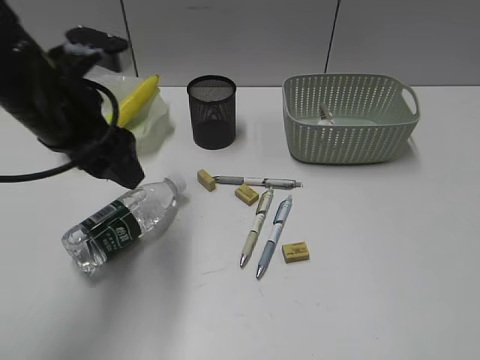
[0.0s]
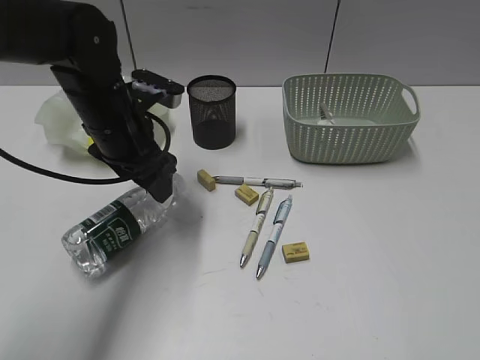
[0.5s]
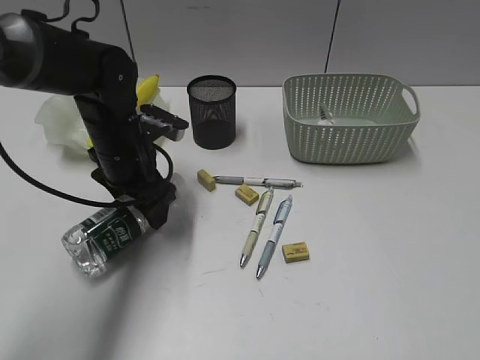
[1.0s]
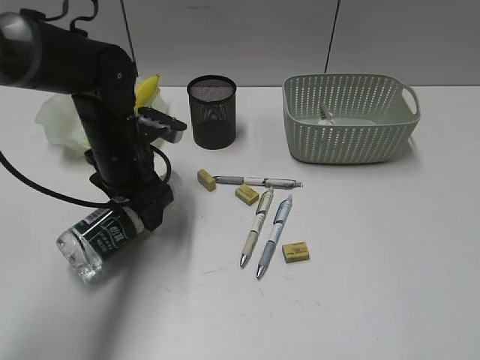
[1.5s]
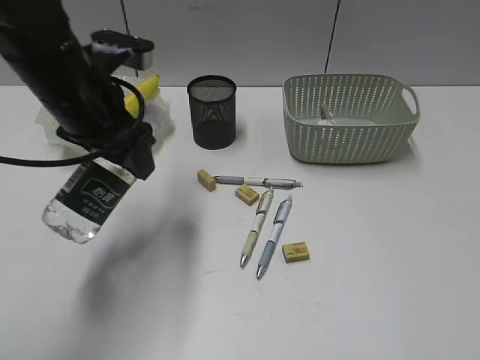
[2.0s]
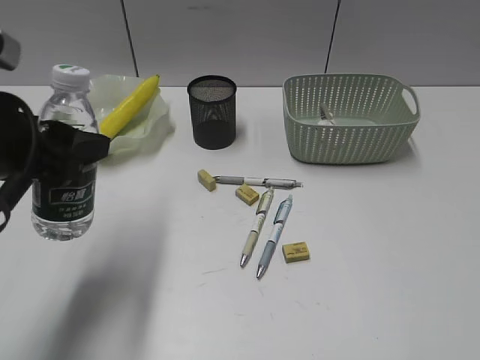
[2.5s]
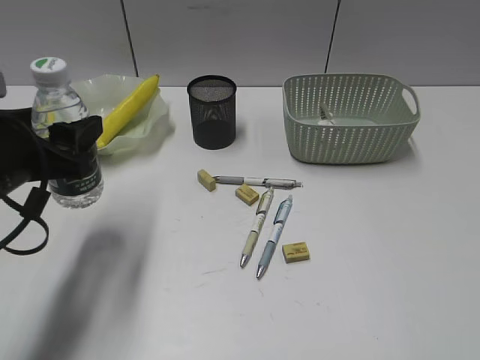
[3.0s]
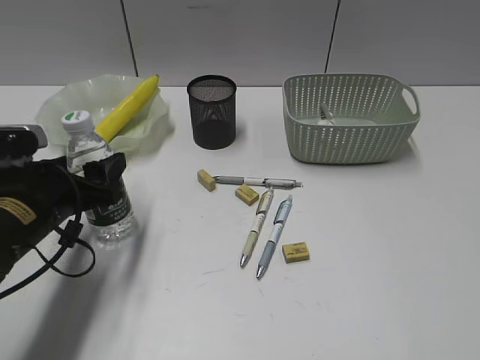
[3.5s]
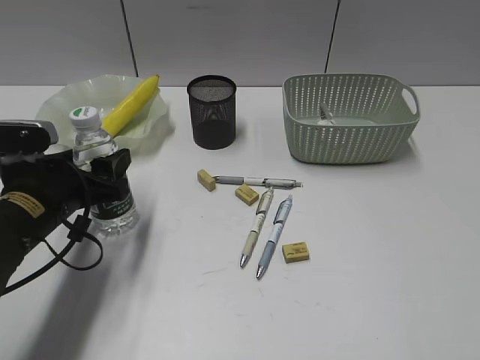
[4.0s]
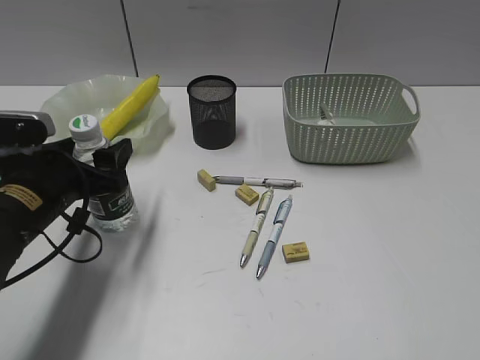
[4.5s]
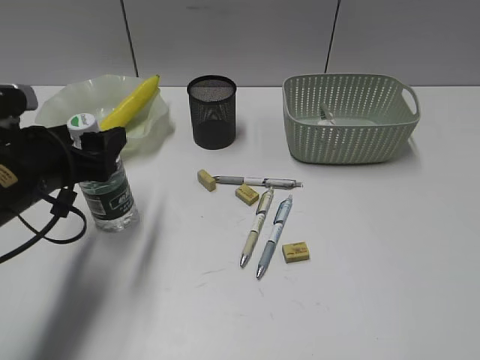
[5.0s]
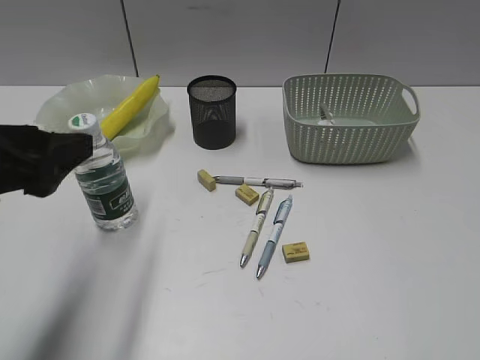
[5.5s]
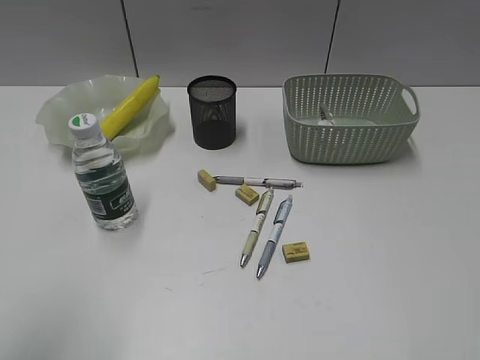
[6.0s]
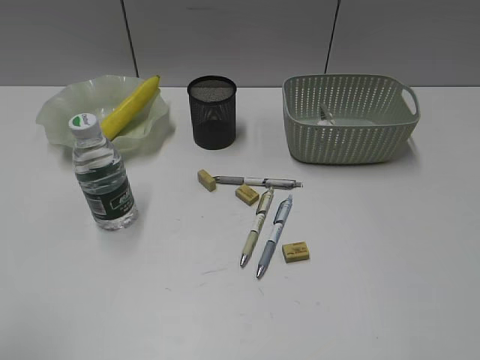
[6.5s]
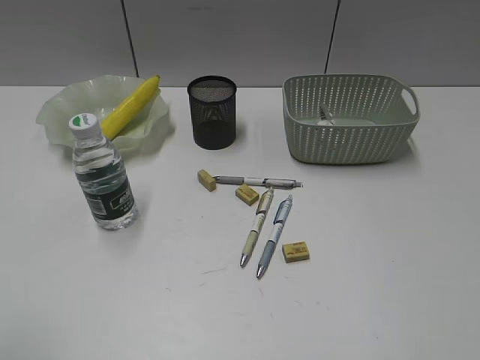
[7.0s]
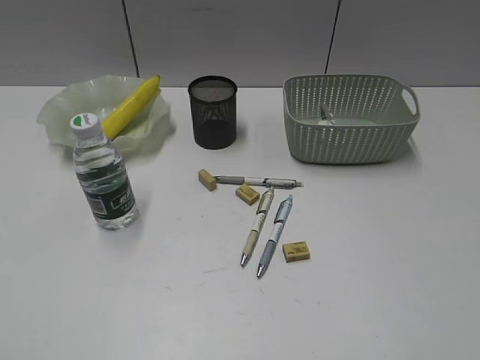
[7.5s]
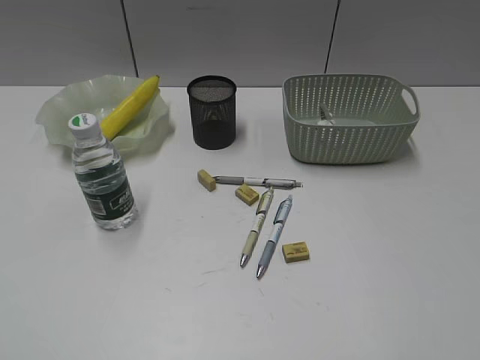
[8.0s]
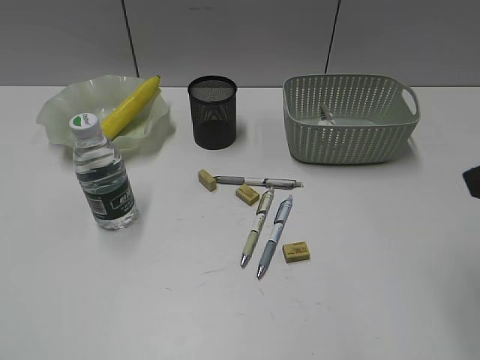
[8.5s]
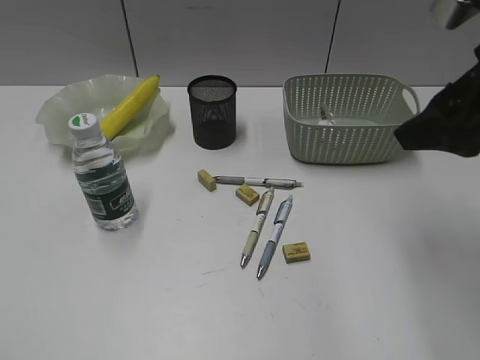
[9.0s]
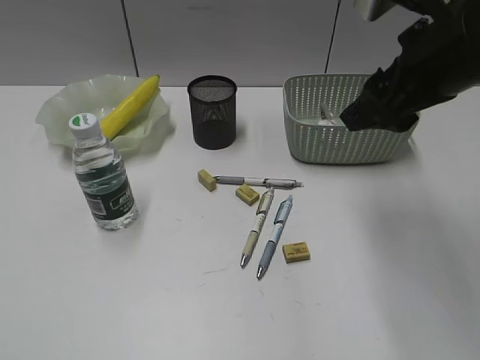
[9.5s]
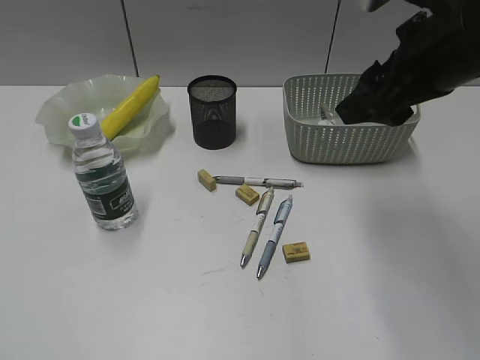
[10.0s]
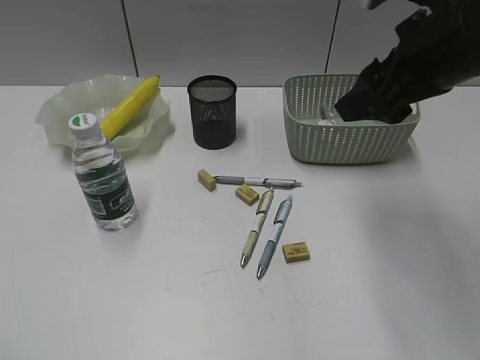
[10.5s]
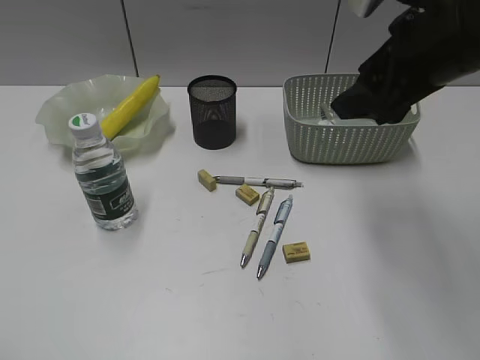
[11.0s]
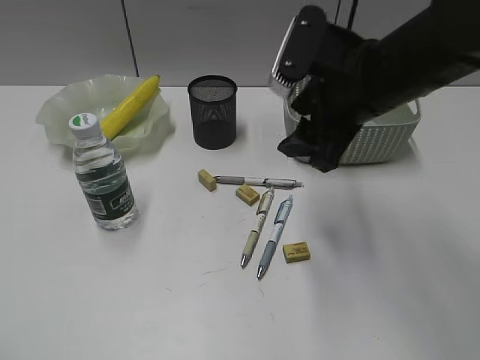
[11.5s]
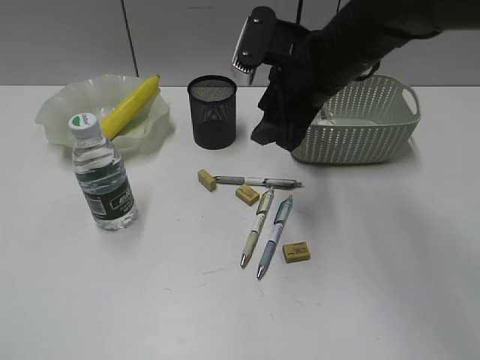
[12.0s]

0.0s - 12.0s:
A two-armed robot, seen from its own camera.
Step, 1.5s - 5.0s: Stand the bottle with left gripper.
0.0s - 2.0s: The left gripper reaches roughly 10 cm downward, then returns.
2.0s - 4.0s: The left gripper moves downward, backward and to the left, some 15 cm.
4.0s - 6.0s: The left gripper is displaced upward and backward by approximately 25 cm.
8.0s - 10.0s: The right gripper shifts about 30 cm forward and to the left.
10.0s - 12.0s: The right gripper goes approximately 15 cm to the left, forward and downward.

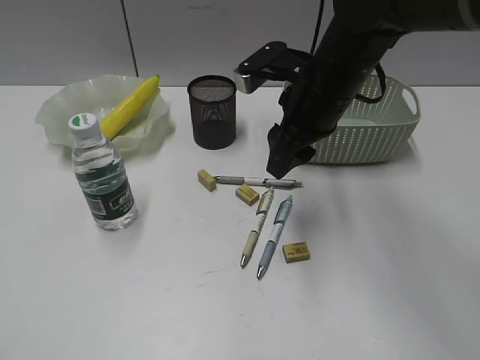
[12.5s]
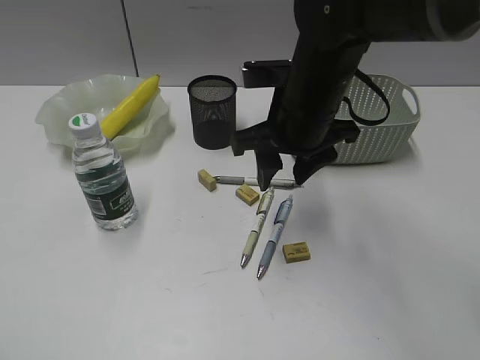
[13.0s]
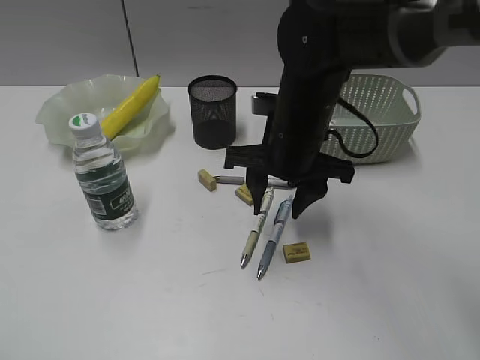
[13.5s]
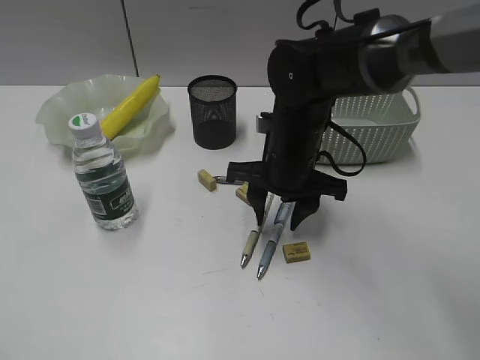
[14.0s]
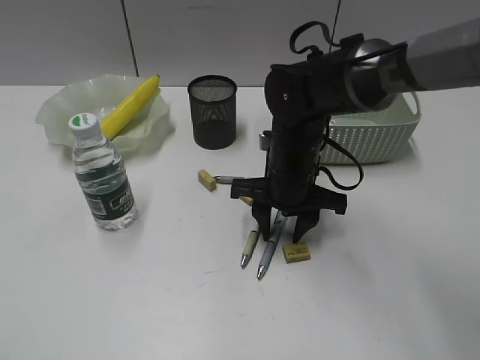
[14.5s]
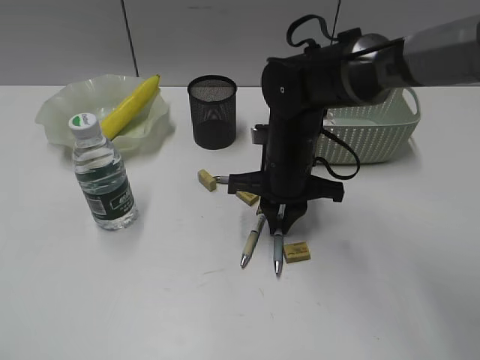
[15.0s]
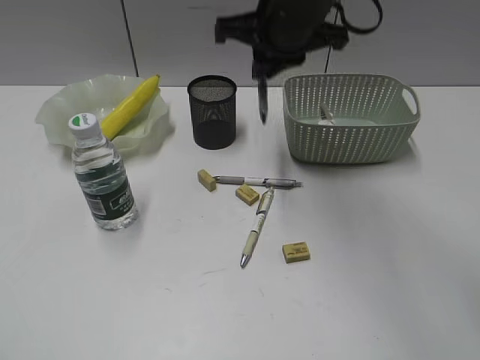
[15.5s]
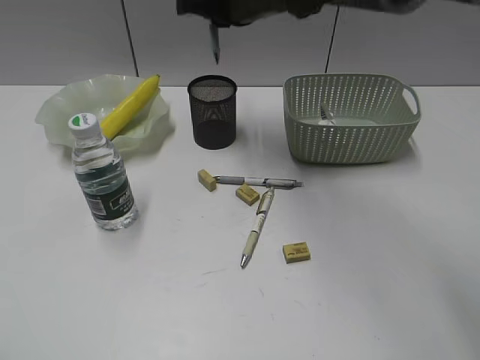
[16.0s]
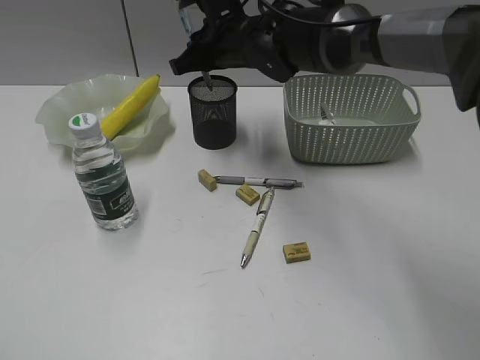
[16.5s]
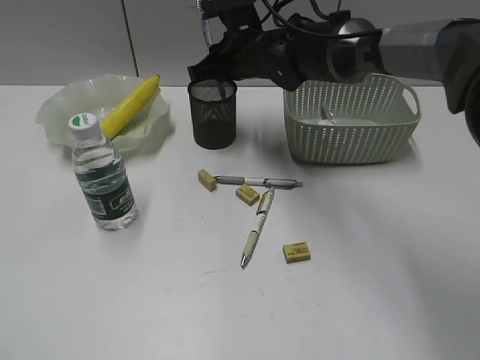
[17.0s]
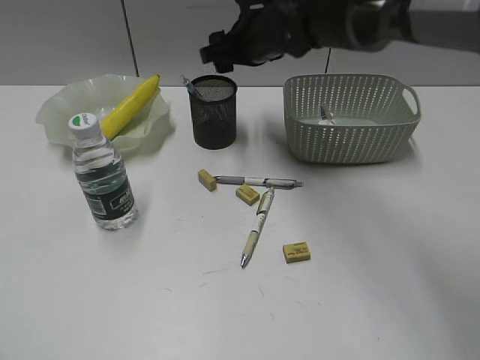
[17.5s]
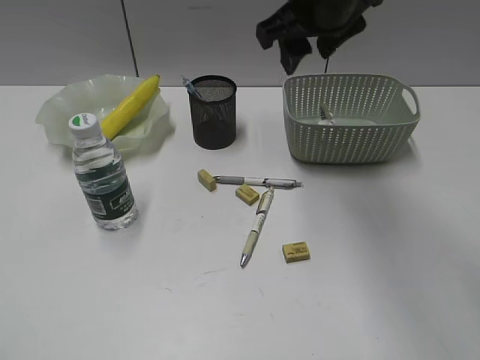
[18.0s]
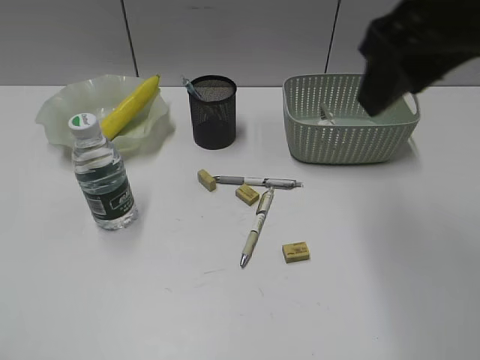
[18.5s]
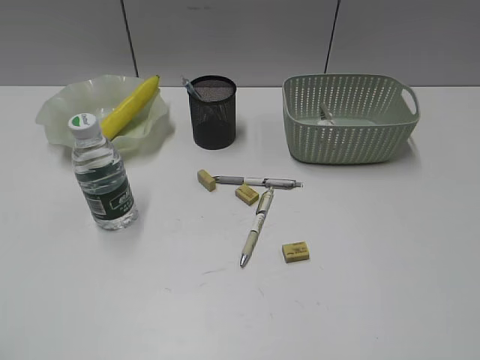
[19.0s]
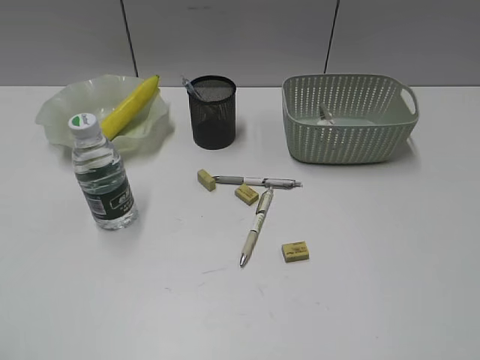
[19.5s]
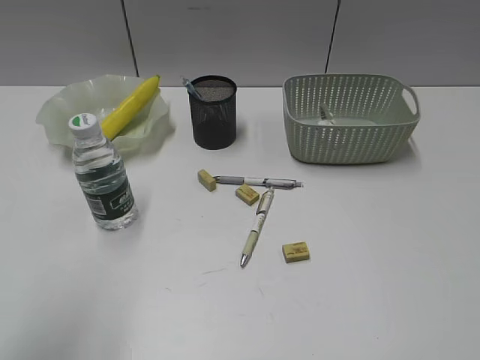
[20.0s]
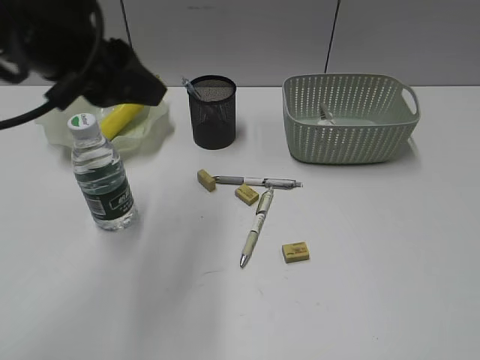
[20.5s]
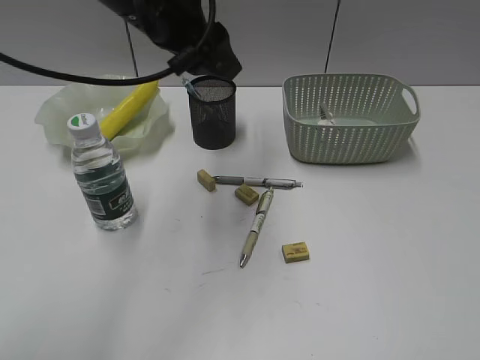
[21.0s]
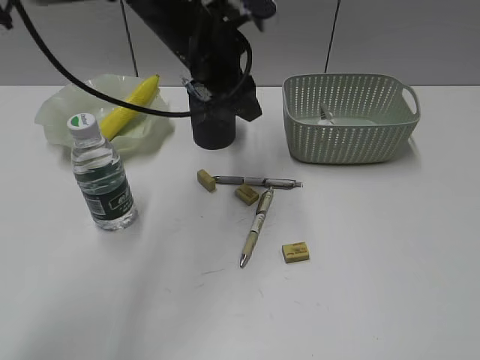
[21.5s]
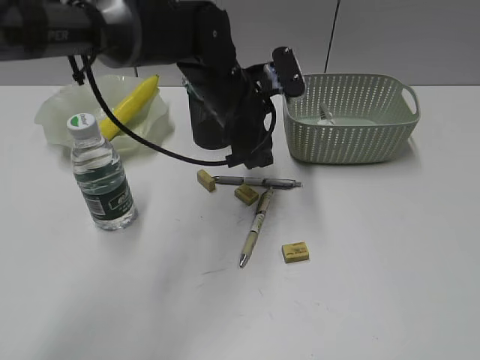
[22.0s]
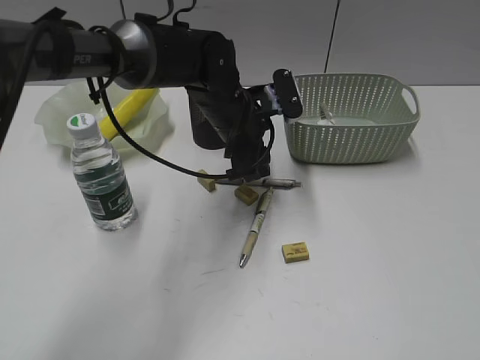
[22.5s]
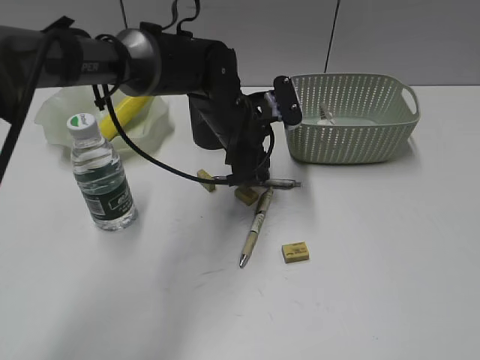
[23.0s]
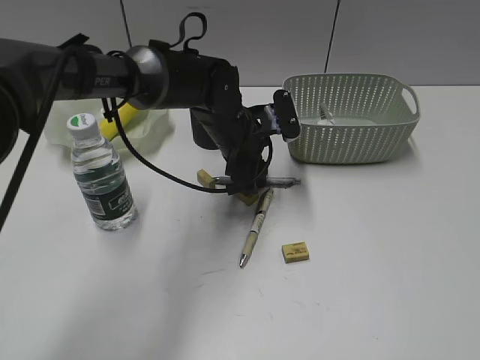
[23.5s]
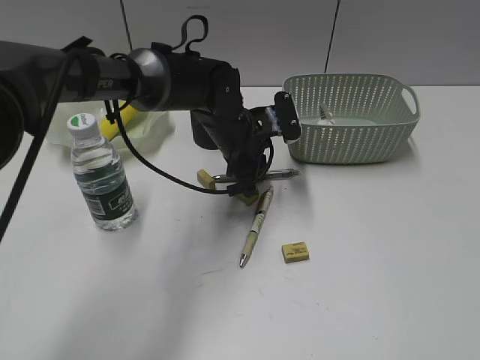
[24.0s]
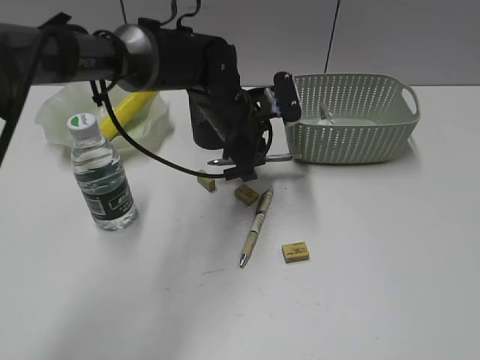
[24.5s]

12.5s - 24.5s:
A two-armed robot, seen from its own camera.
Step, 12.5s - 14.5s: Grasp the blue pen with right gripper.
Step, 15.0s - 17.0s: Place the blue pen in pen holder with right gripper.
Step, 17.5s - 24.0s: Grasp the gray pen with left gripper.
12.5s - 14.5s: The right gripper travels downward by some 10 cm.
14.5s - 16.5s: The right gripper moves forward, upward and to the left, some 15 cm, and closes its fingers.
16.5s - 18.5s: The right gripper goes about 30 cm backward, upward and to the right, and opens.
18.5s - 20.5s: The right gripper travels backward and to the right by about 30 cm. The left gripper heads forward and to the right, covering roughly 30 cm.
20.5s - 22.5s: The left gripper is displaced downward, to the right and forward by roughly 25 cm.
22.5s - 24.5s: The left gripper closes up.

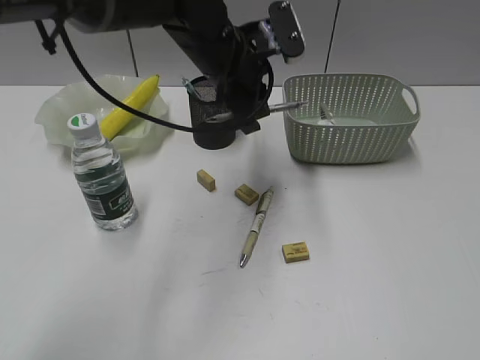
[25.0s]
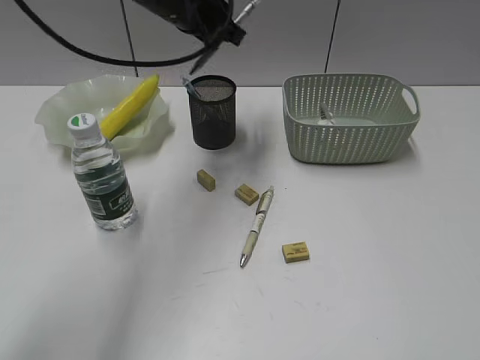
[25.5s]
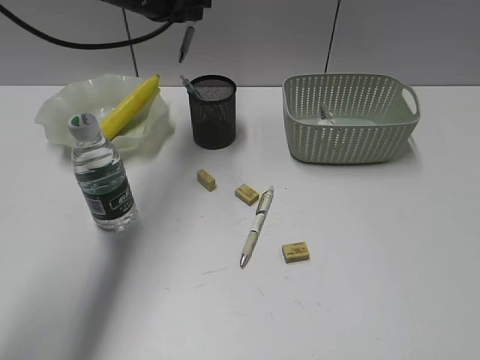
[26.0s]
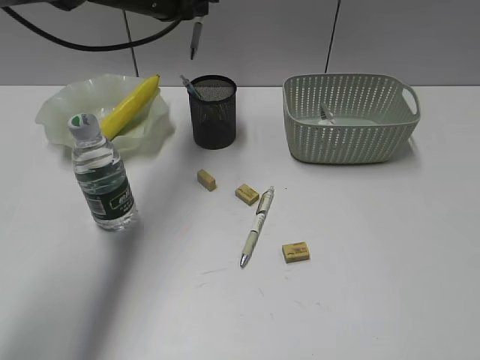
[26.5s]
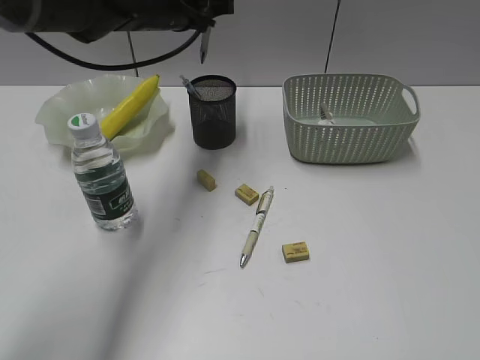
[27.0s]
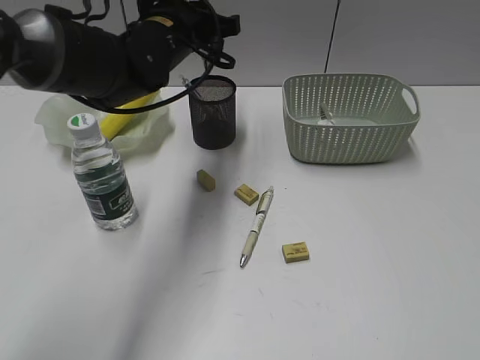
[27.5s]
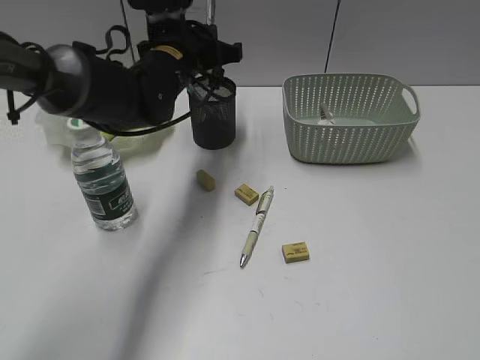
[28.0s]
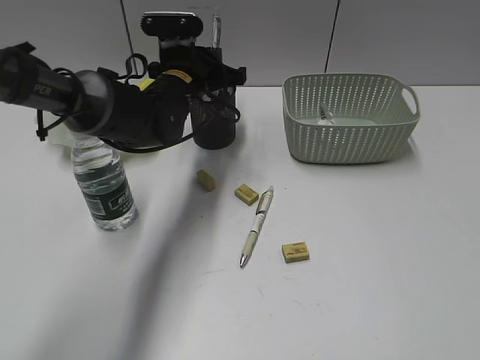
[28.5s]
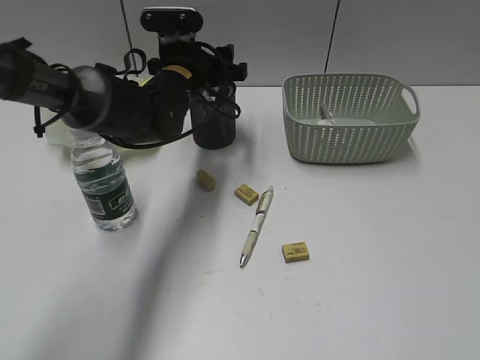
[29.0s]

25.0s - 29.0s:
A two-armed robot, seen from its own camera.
Step, 25.0s - 29.0s: Place the gray pen in pen holder with left gripper.
25.0s - 27.0s: The left gripper goes roughly 10 cm to the left and forward.
27.0s - 29.0s: The left gripper travels downward by roughly 10 cm, and opens.
